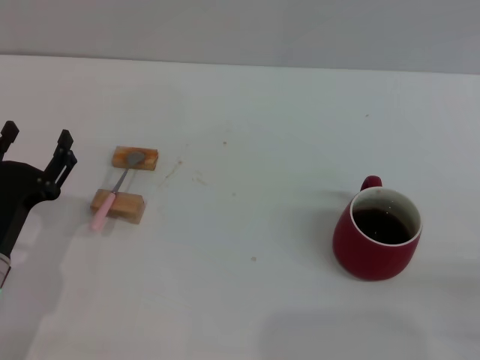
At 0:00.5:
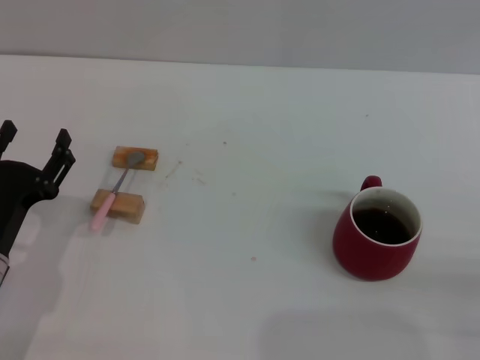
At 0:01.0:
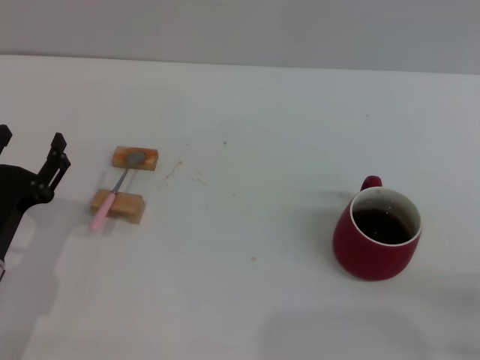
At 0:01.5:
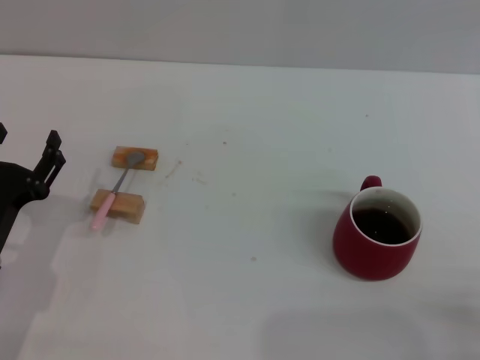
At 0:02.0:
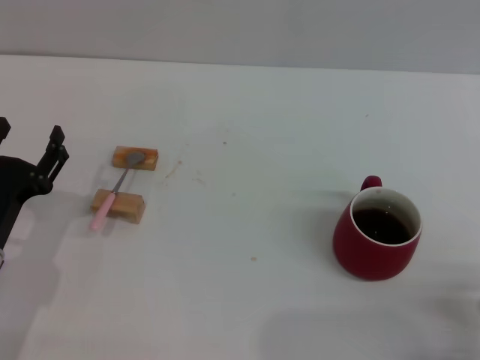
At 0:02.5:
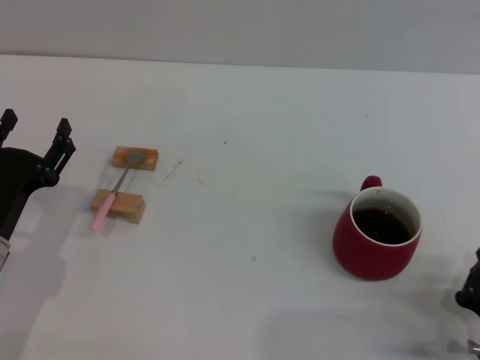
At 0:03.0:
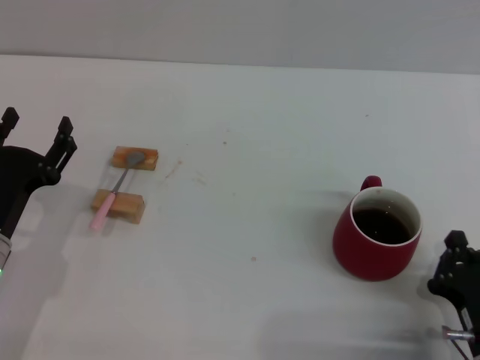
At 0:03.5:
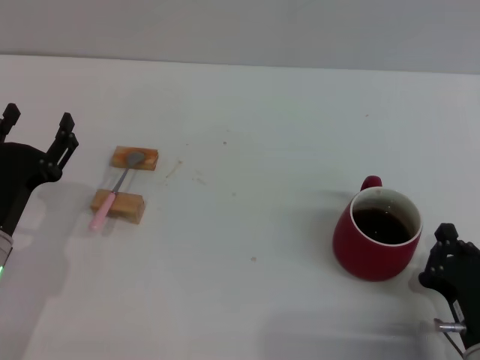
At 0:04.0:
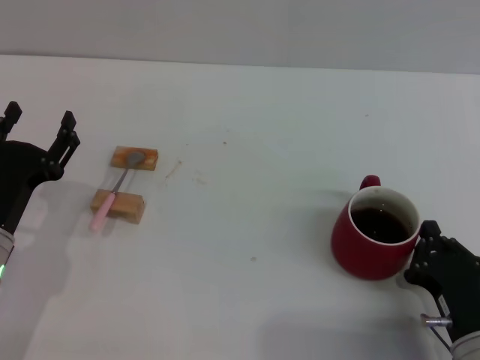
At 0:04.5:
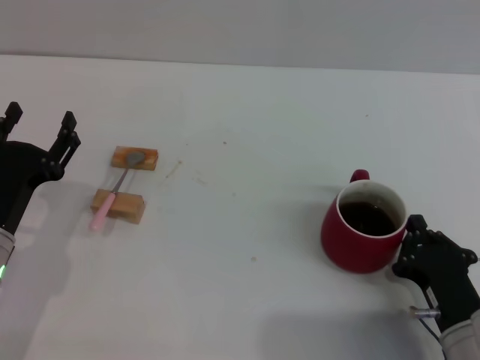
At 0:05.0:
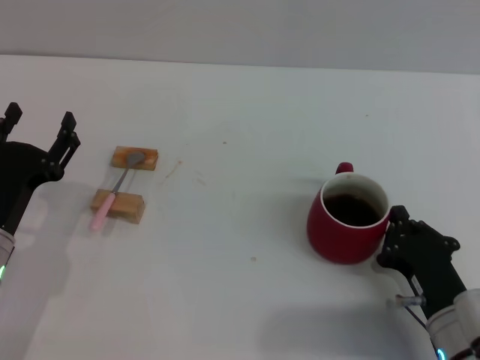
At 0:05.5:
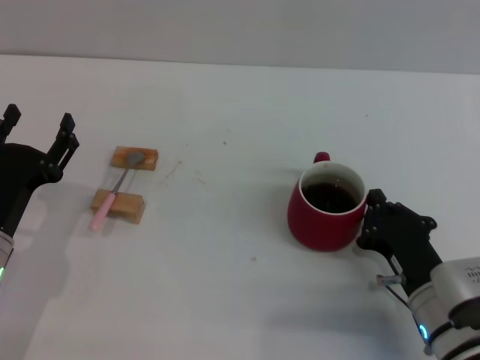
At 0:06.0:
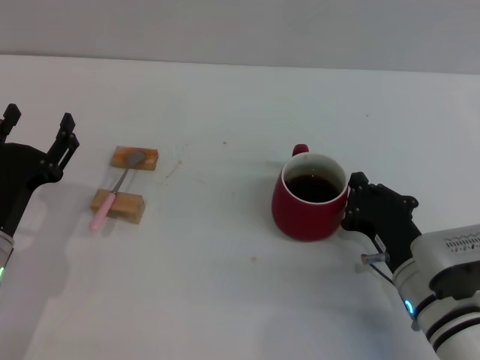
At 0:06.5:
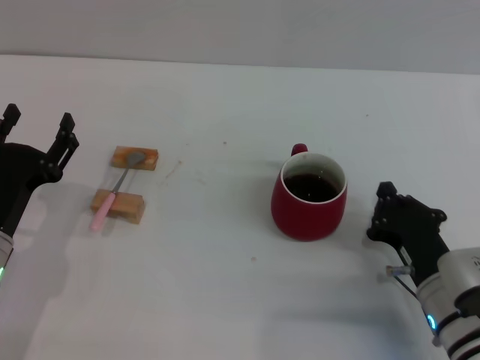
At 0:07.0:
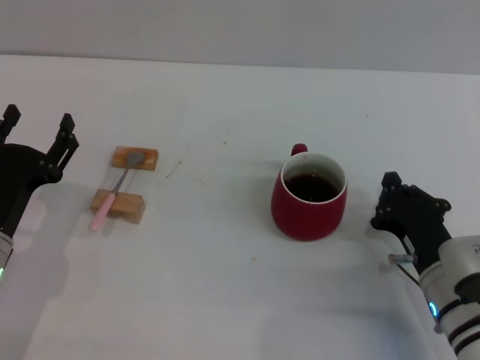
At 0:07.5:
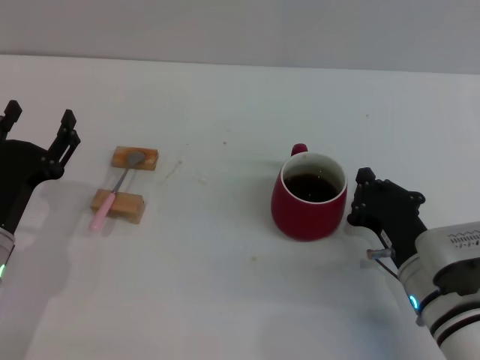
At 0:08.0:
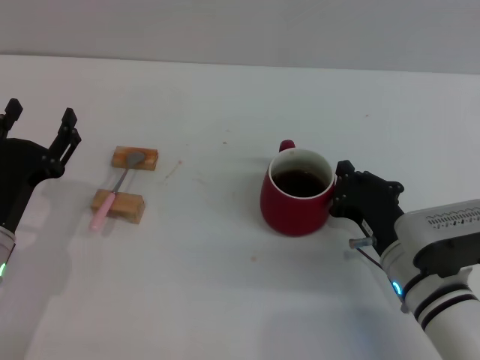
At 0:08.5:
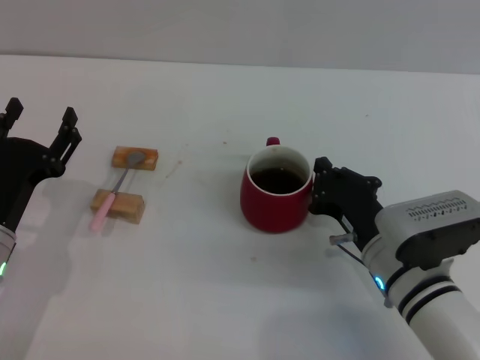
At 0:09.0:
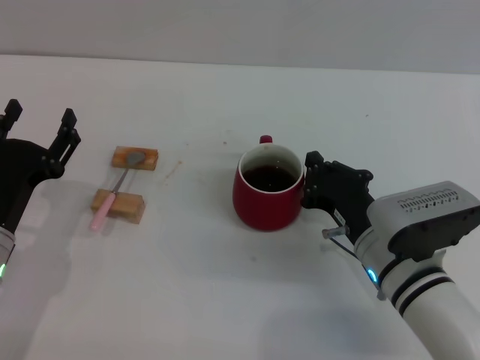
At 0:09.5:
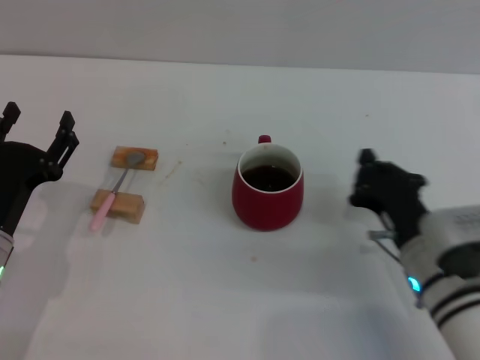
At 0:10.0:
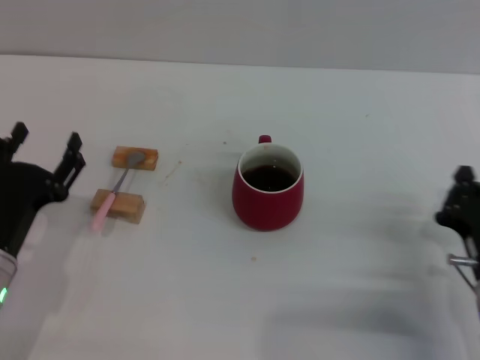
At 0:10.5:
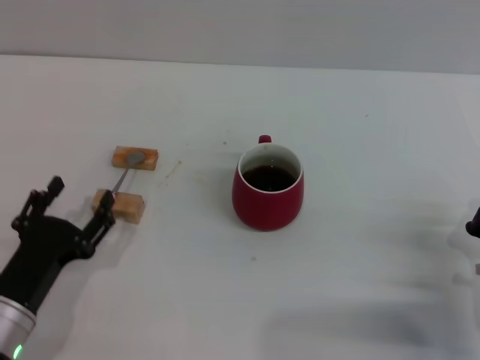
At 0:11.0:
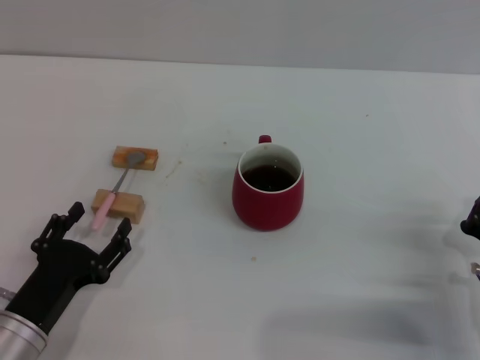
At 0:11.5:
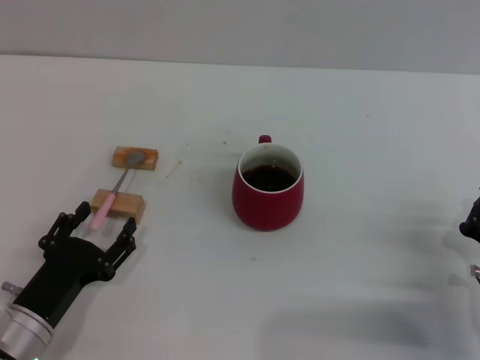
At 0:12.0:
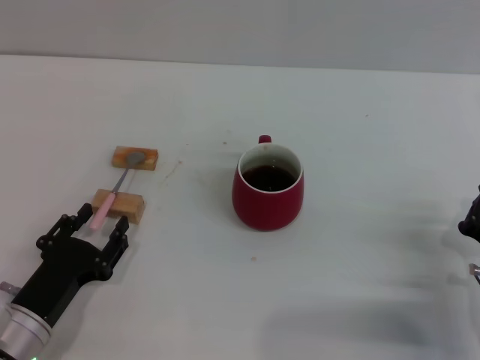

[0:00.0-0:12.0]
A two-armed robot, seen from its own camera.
Task of the whole recording: Move the red cup to the center, lift the pink spoon, stir it three times in the cup, and put the spoon into the cup.
Step, 0:00.0 to 0:09.5: Move the cup with coffee to the center of view with the right gripper.
0:02.0 to 0:04.0: The right gripper heads forward, covering about 5 cm.
0:04.0 to 0:06.0: The right gripper shifts approximately 5 cm forward.
0:06.0 to 0:08.0: The grippers stay close to where they were, moving slightly.
0:08.0 to 0:10.0: The right gripper heads to the right, covering about 5 cm.
0:10.0 to 0:12.0: The left gripper moves roughly 5 cm.

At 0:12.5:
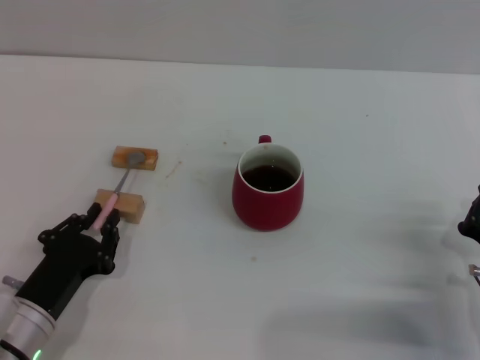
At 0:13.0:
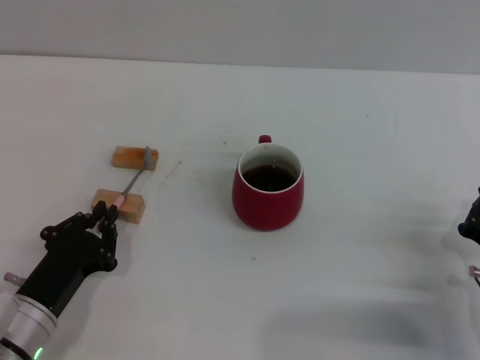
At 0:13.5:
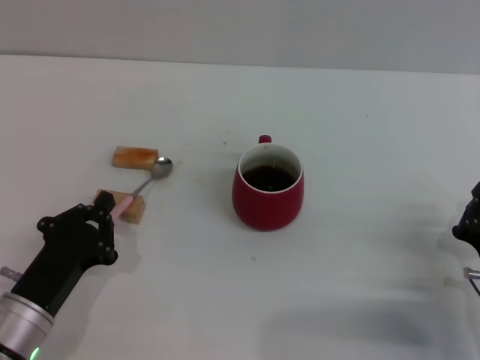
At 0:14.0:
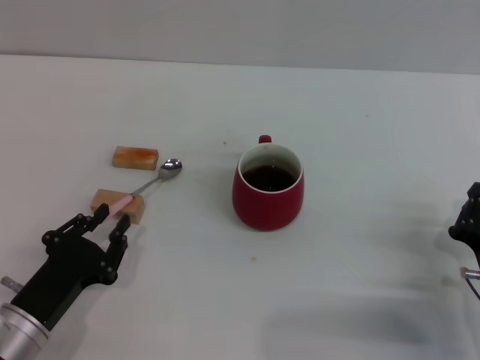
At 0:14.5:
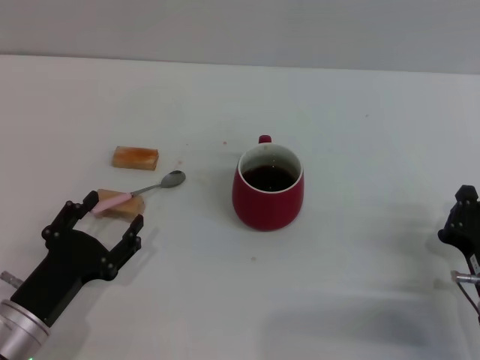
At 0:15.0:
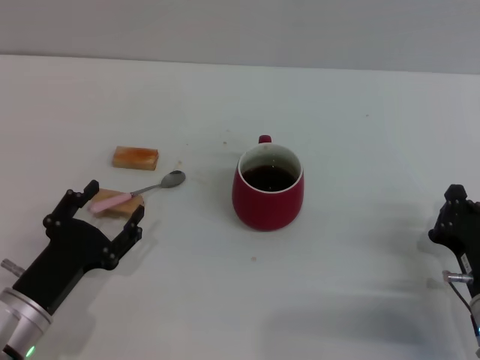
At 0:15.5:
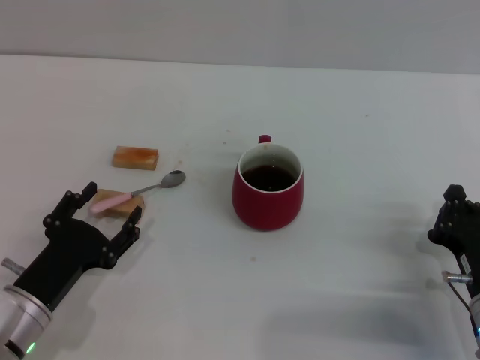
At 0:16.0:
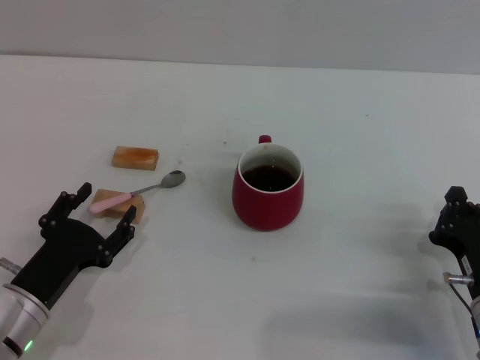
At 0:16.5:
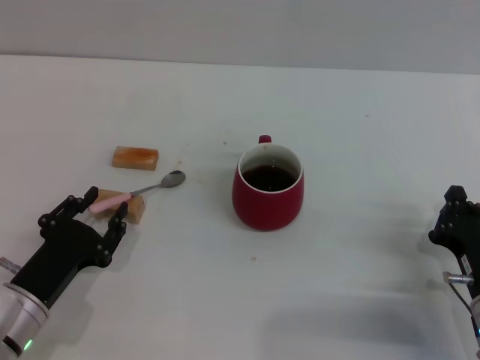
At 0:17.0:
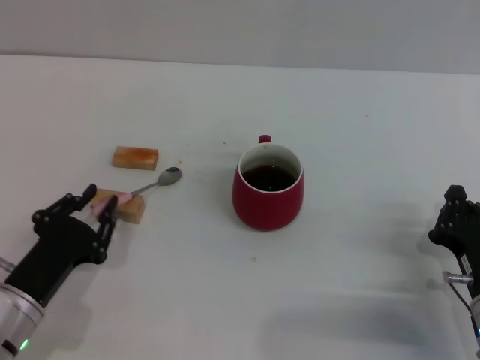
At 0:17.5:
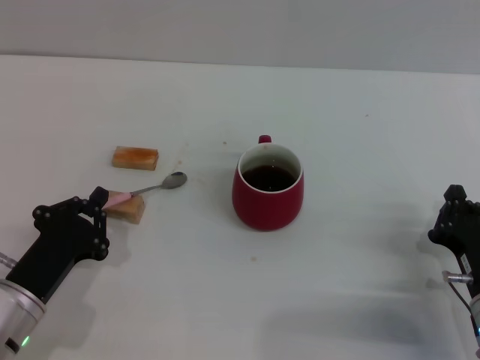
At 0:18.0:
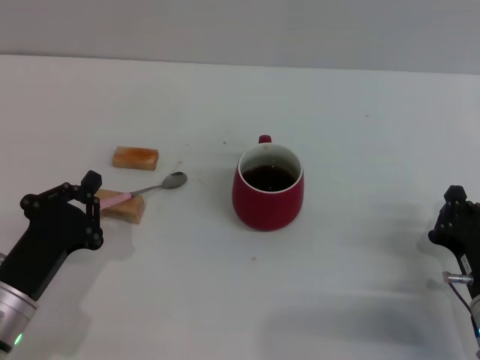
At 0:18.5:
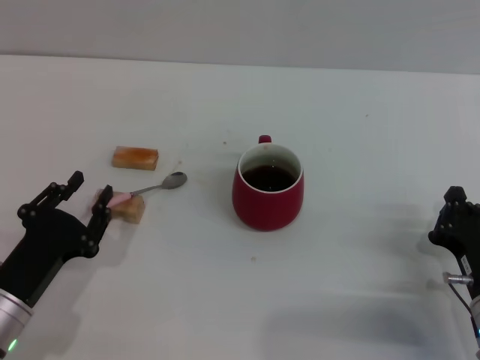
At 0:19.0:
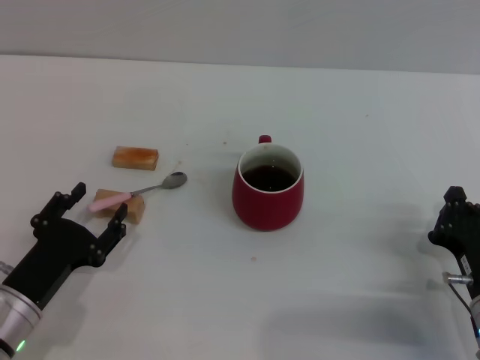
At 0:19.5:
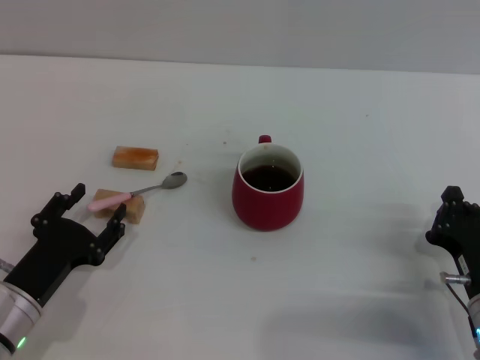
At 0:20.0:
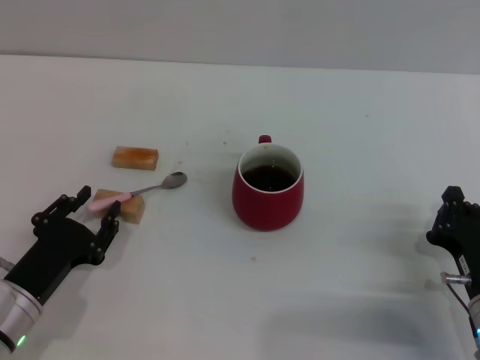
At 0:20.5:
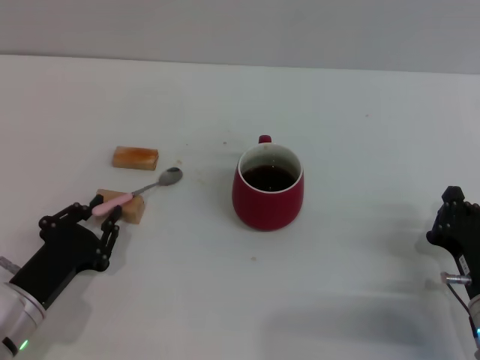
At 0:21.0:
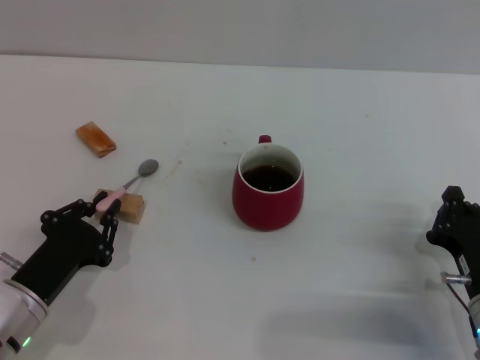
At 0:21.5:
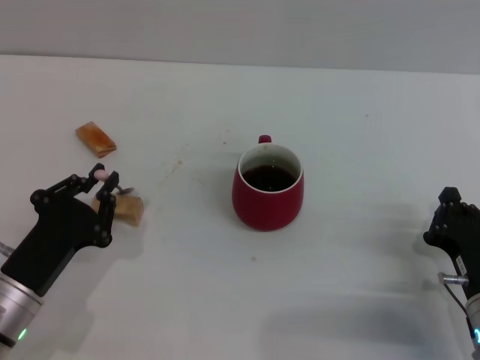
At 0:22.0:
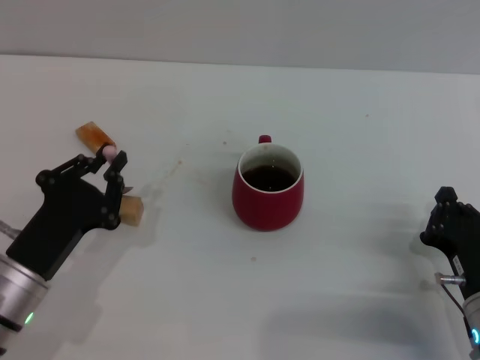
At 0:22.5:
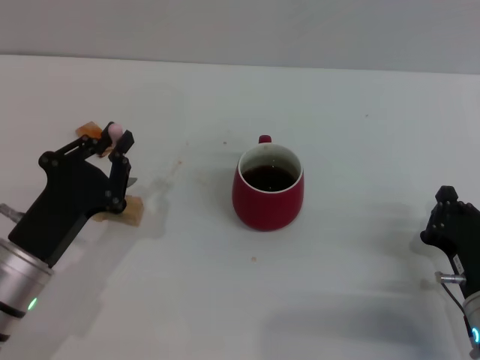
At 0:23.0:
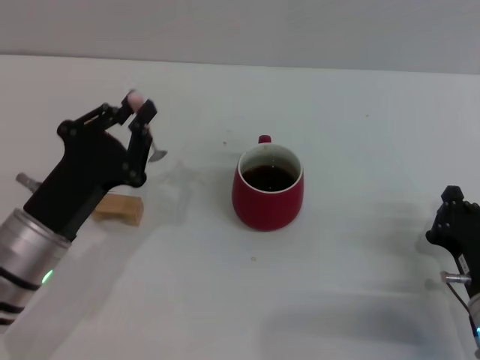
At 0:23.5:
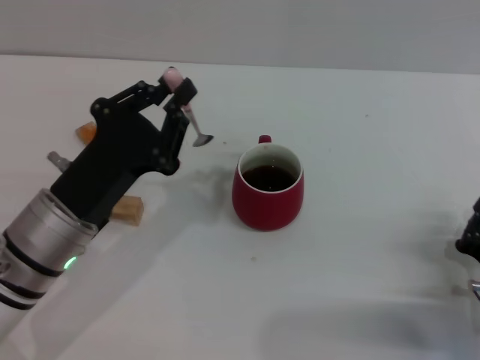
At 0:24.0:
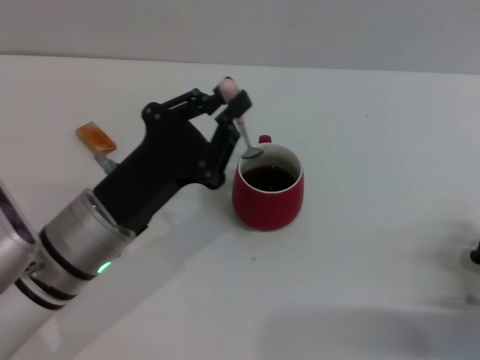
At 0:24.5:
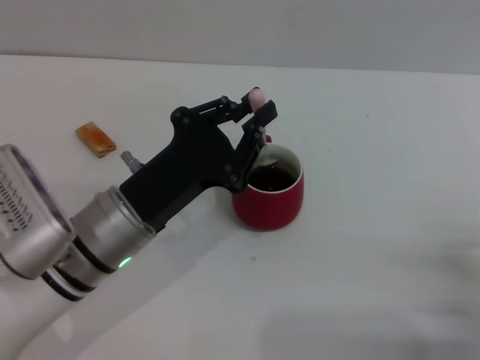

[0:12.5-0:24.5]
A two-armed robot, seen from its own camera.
Task of the whole recording: Move the red cup to the center, lift the pink spoon, stir it three times in the cup, and put the spoon into the cup.
Step, 0:12.5 to 0:22.5: Pick up the spoon with the left gripper.
0:12.5 to 0:14.5: The left gripper closes, then opens again.
0:14.5 to 0:16.5: There are only small adjustments of the grippers.
0:16.5 to 0:18.5: The left gripper closes up.
0:18.5 to 0:20.5: The left gripper opens, then closes again.
0:20.5 to 0:22.5: The left gripper changes place by approximately 5 cm.
0:22.5 to 0:24.5: The left gripper moves to the right, some 10 cm; the right gripper shifts by approximately 5 cm.

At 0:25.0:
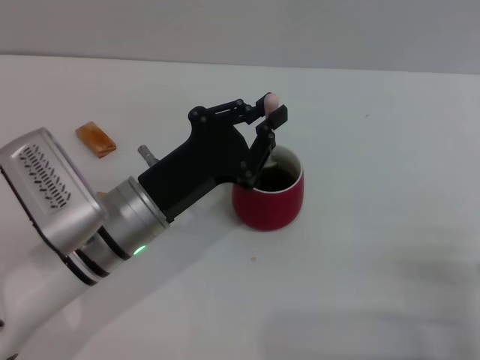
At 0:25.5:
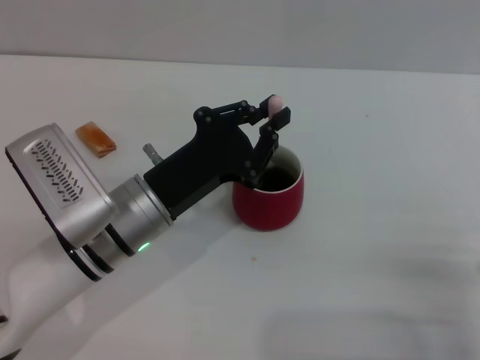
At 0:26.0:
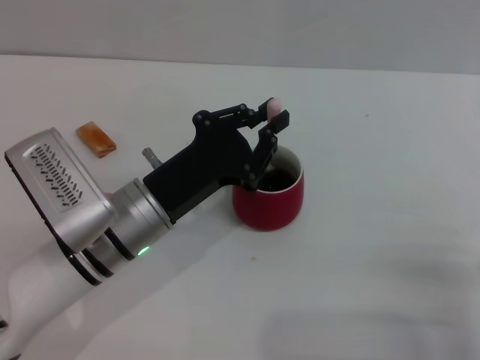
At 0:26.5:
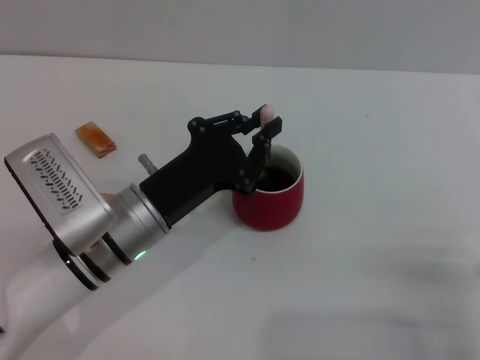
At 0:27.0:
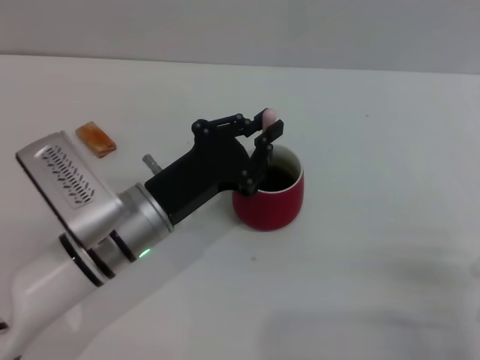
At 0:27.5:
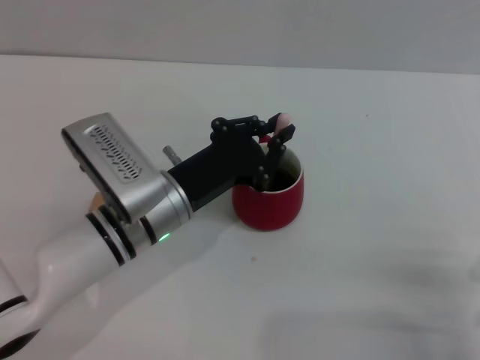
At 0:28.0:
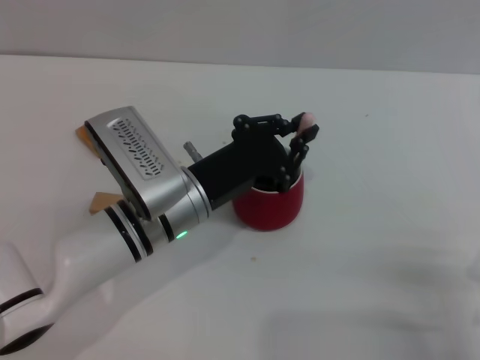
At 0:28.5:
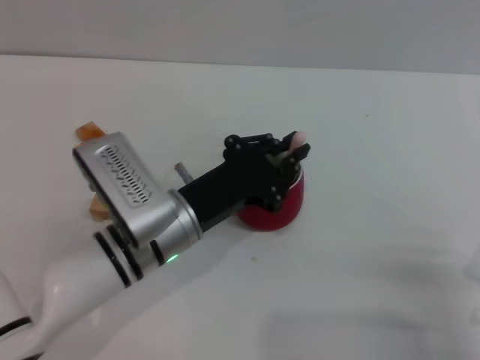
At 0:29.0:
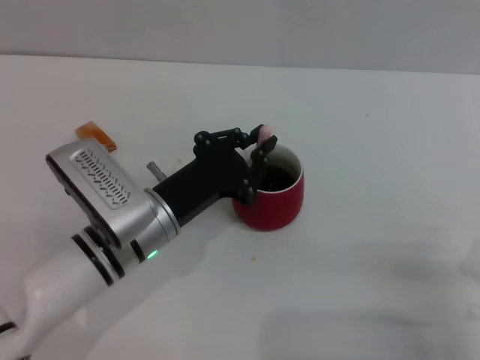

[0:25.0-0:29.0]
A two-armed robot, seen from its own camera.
Task of the whole recording: Move the red cup to the center, lift the pink spoon, stir it three times in the cup, and put the spoon into the cup.
0:25.0 to 0:29.0: The grippers make only small movements.
